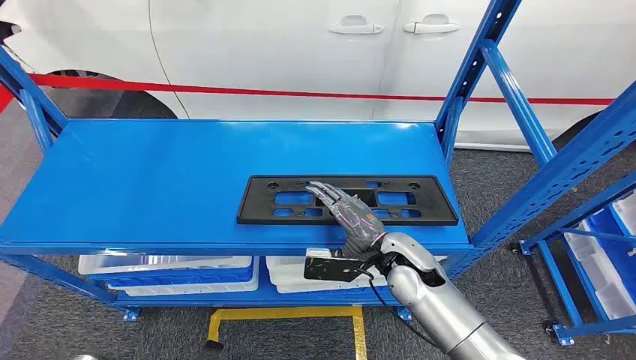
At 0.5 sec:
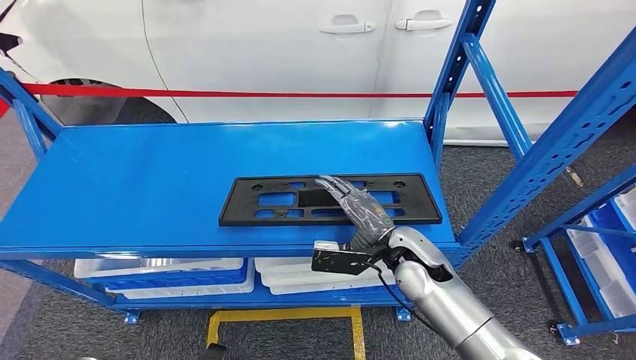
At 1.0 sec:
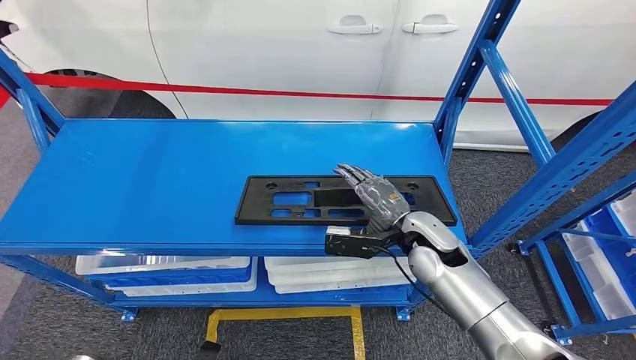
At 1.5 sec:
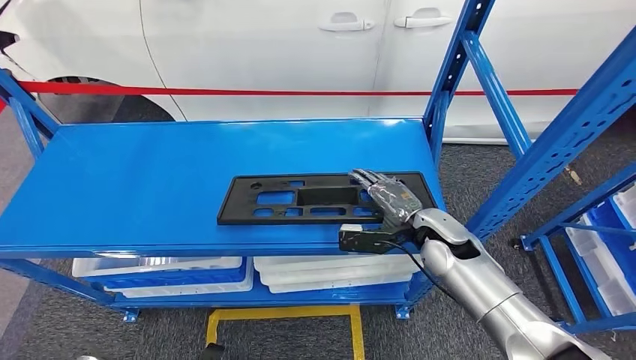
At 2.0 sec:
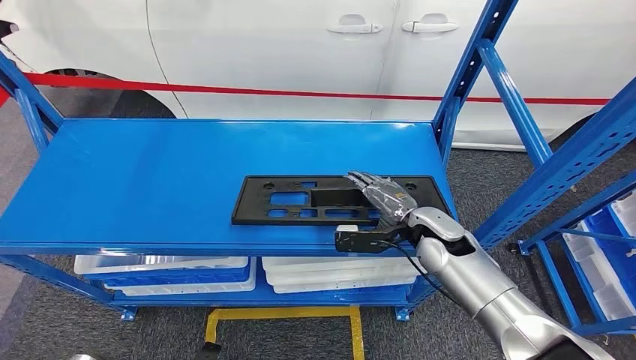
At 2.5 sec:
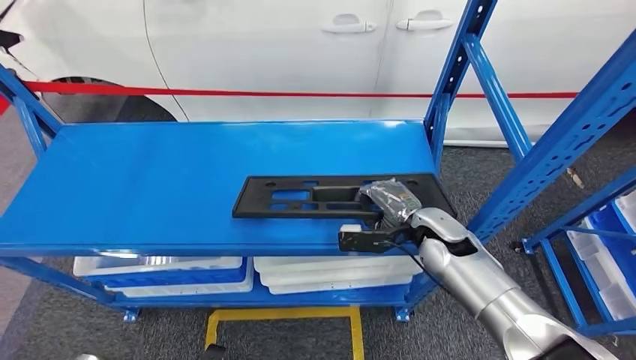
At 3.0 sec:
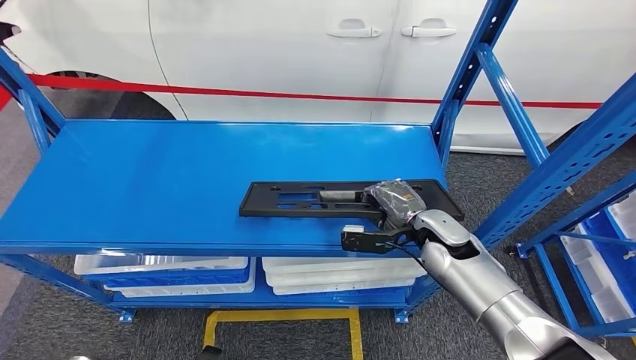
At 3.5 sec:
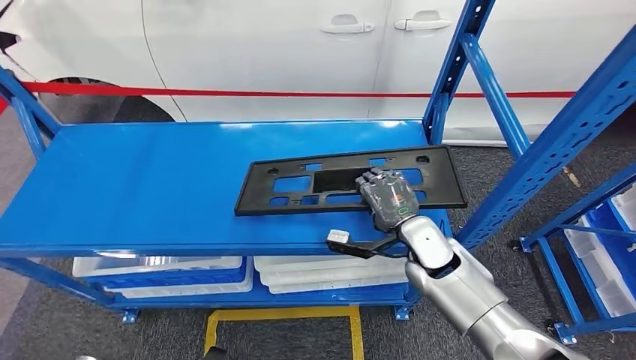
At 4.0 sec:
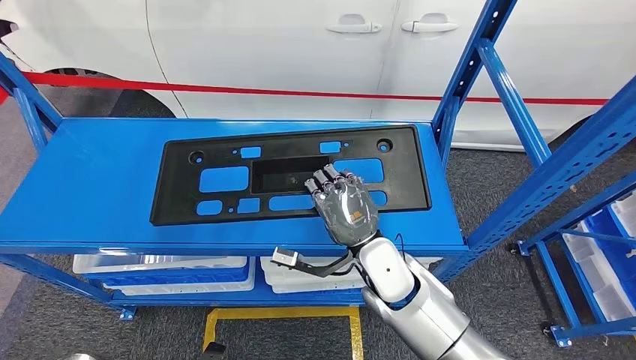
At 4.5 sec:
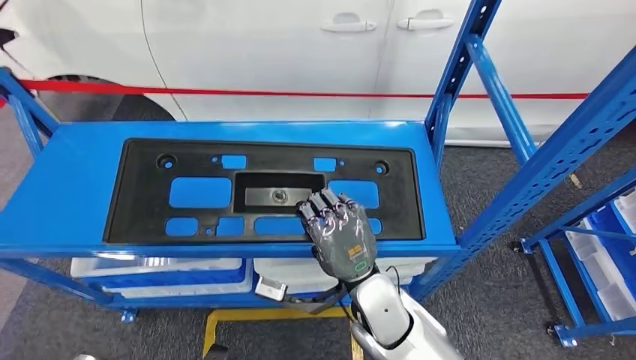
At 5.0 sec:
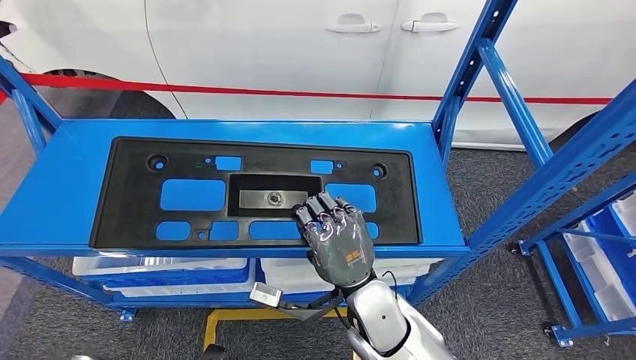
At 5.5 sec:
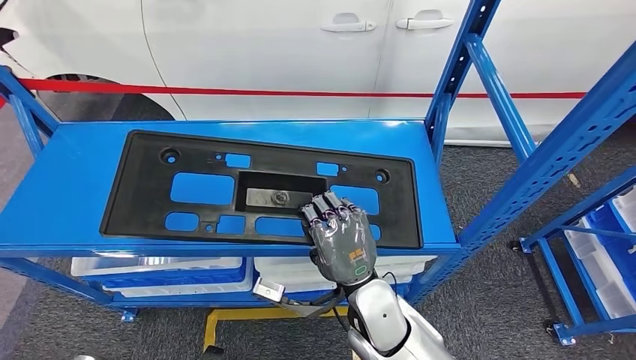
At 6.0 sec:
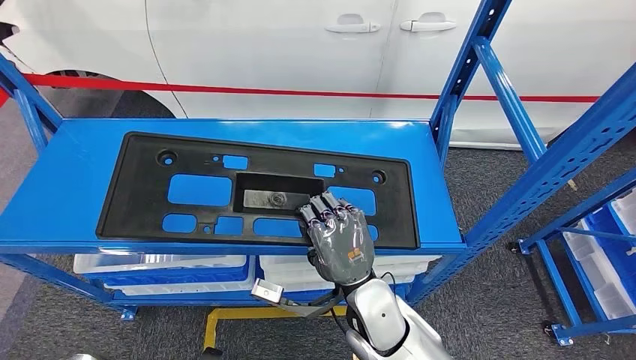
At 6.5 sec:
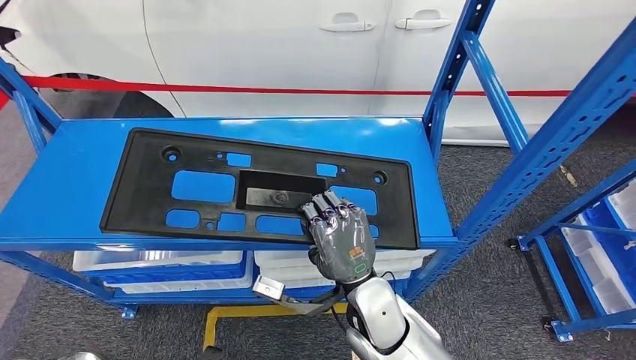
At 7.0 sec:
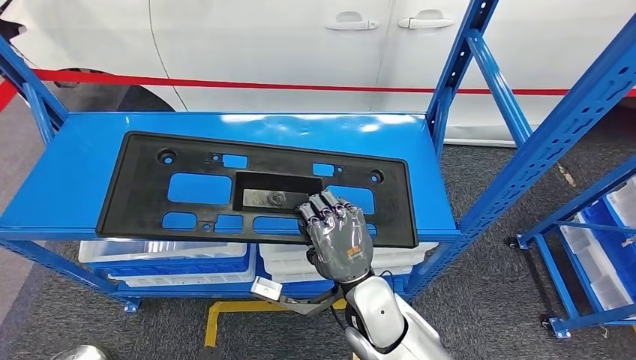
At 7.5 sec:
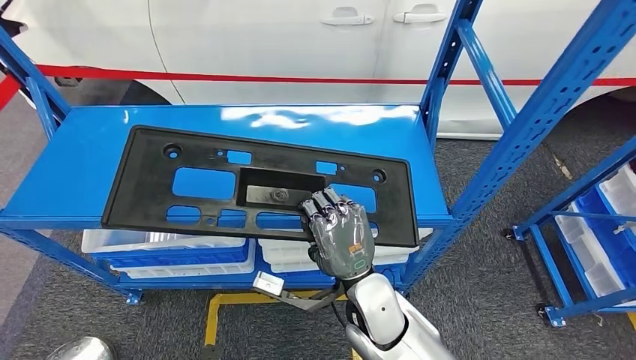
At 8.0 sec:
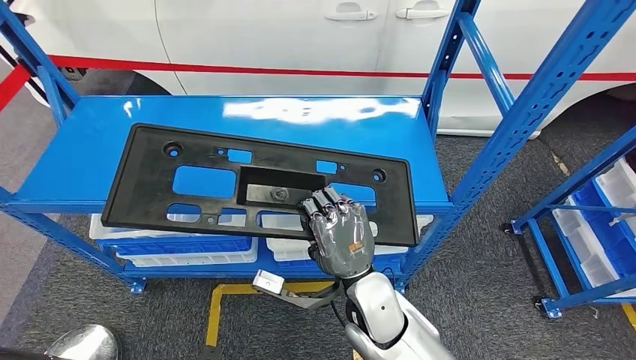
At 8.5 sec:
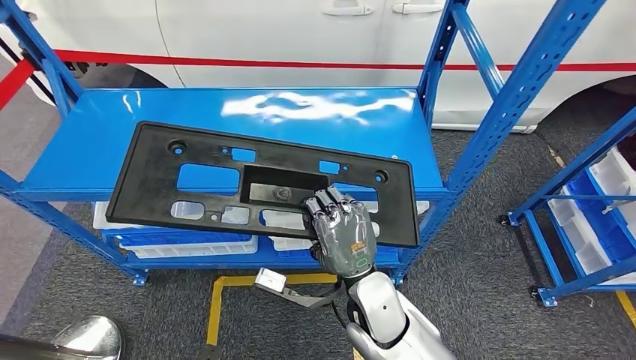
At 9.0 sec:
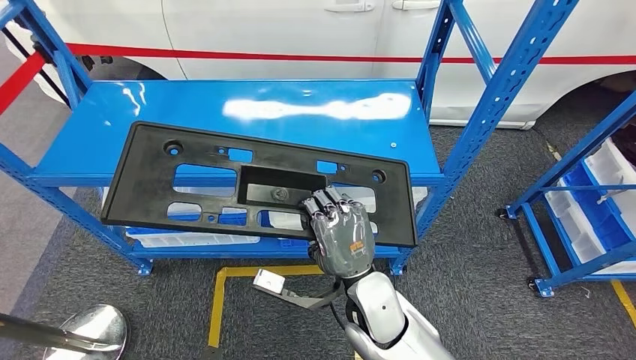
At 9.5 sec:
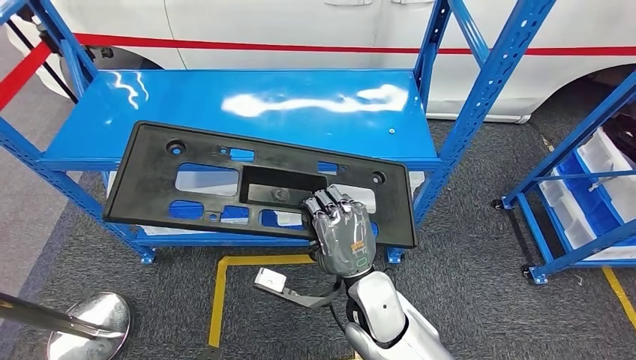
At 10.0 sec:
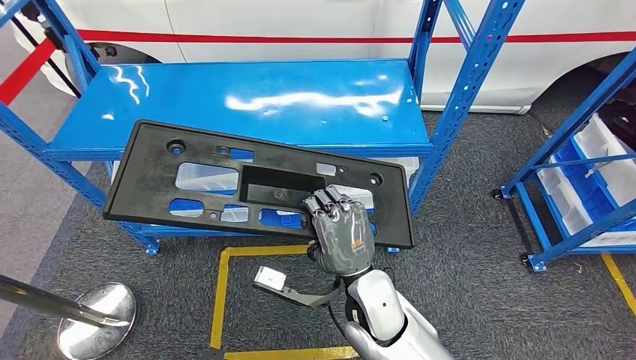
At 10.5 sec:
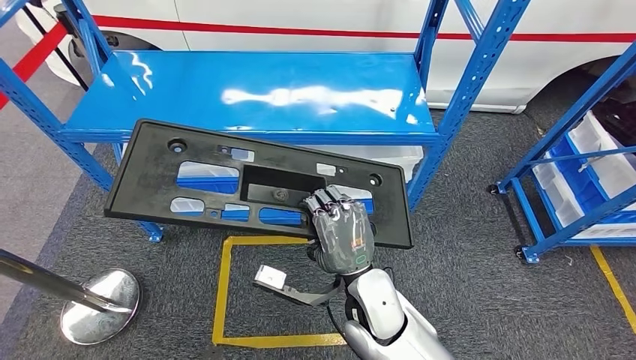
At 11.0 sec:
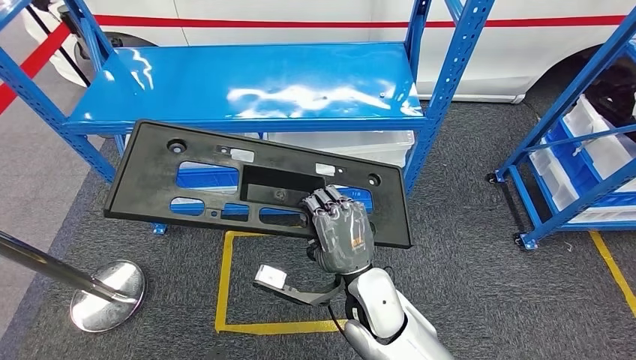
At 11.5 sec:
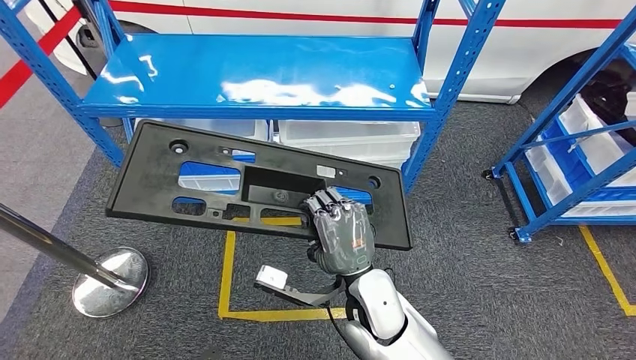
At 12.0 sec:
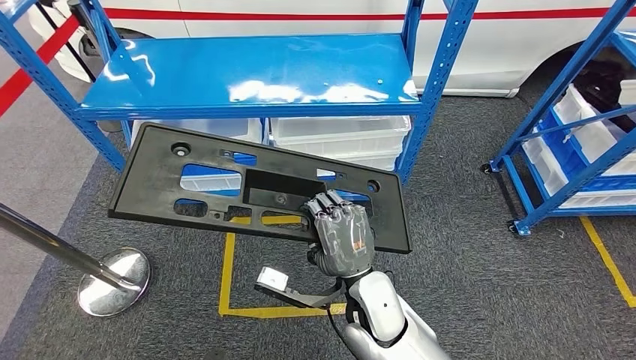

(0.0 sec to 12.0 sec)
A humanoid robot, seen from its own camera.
Step, 0.0 sec - 9.0 sec: Pick up the large material from the shelf.
2.0 sec - 4.0 sec: The right hand moves to the left and backward, roughly 15 cm.

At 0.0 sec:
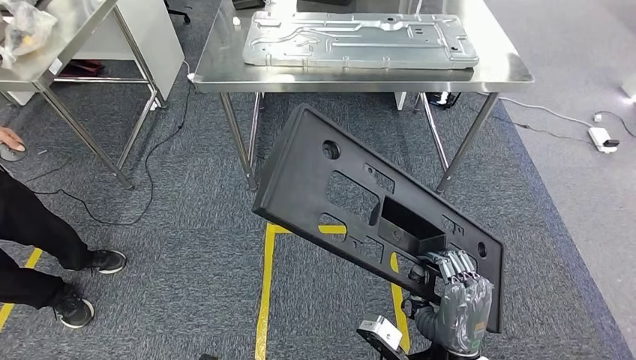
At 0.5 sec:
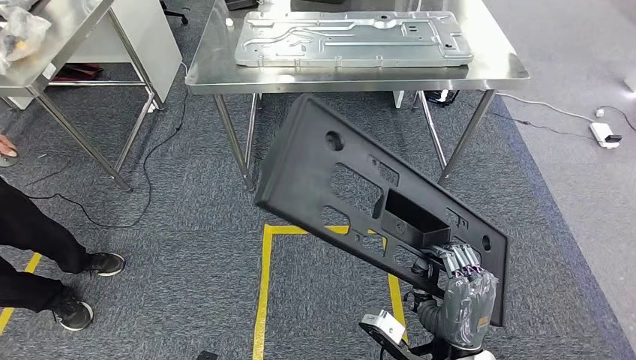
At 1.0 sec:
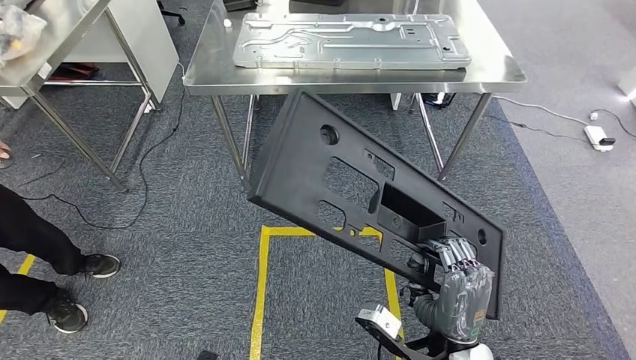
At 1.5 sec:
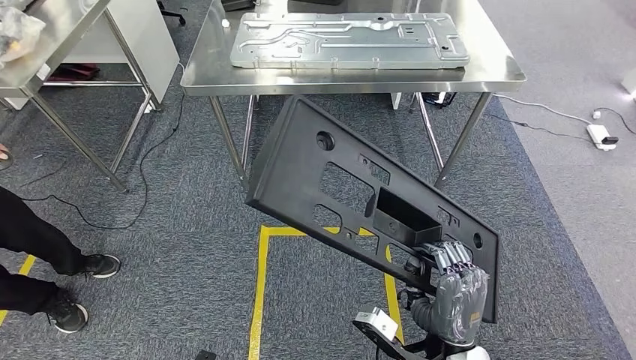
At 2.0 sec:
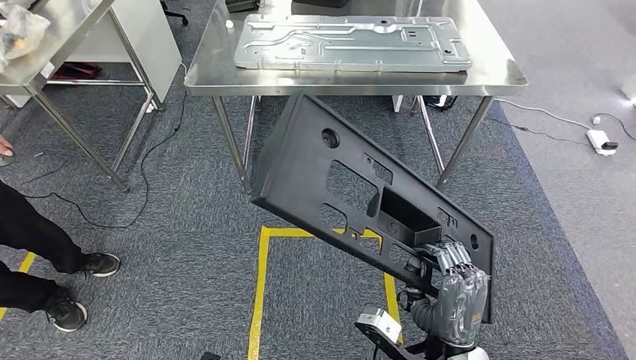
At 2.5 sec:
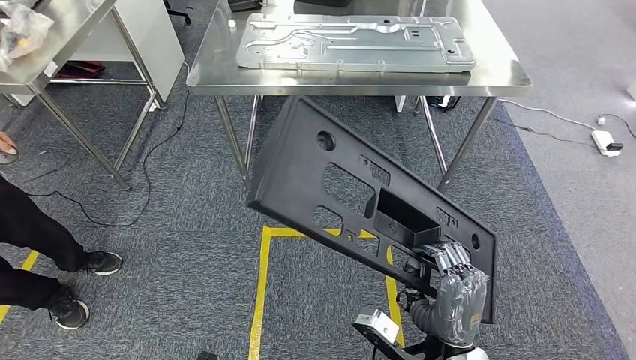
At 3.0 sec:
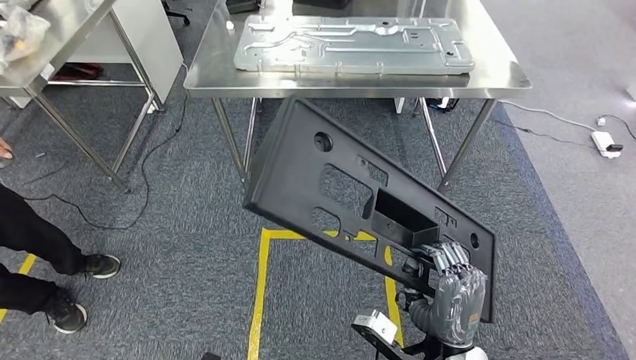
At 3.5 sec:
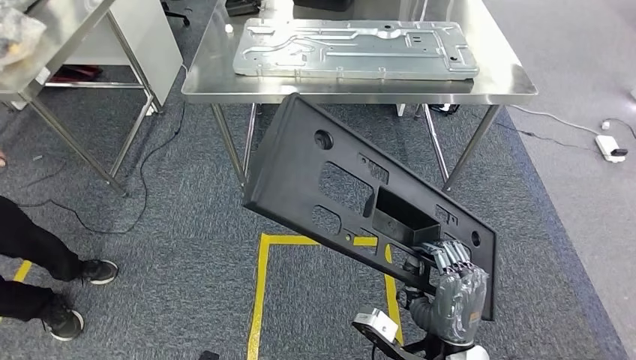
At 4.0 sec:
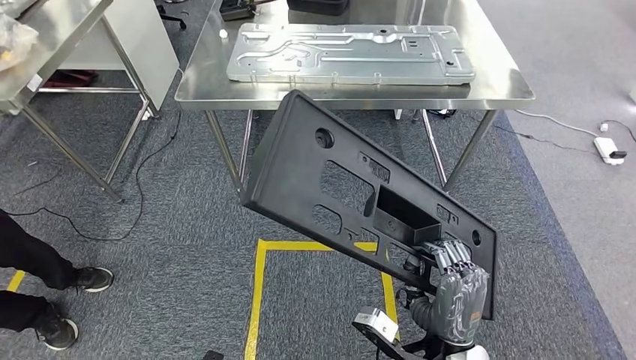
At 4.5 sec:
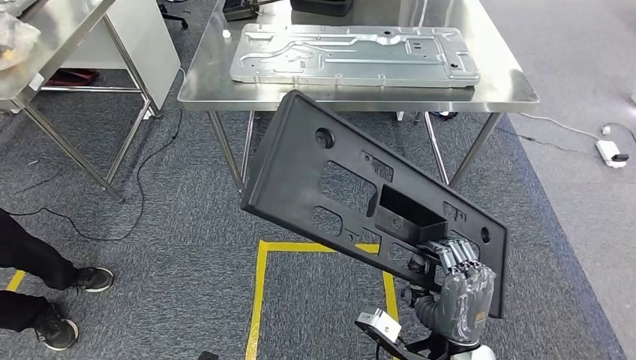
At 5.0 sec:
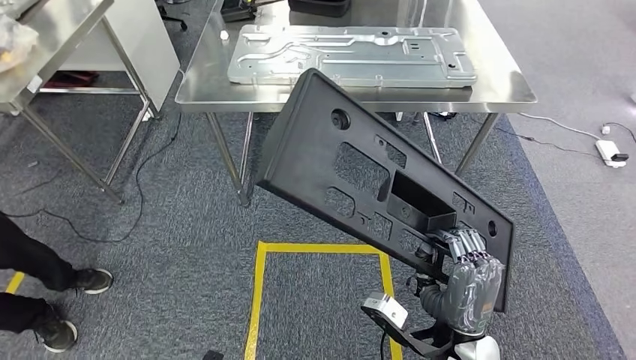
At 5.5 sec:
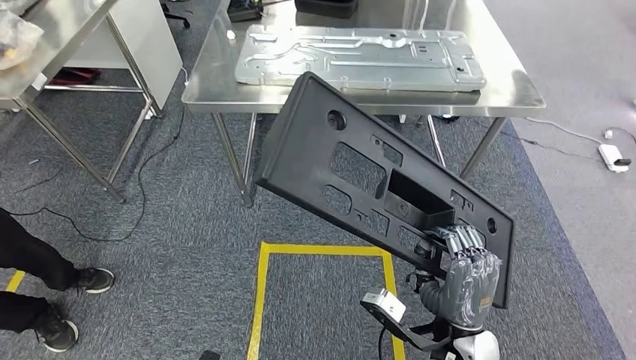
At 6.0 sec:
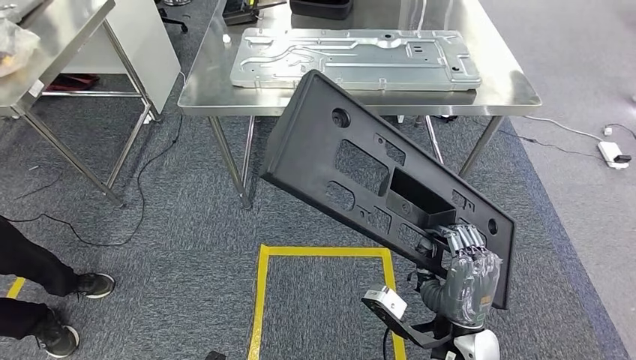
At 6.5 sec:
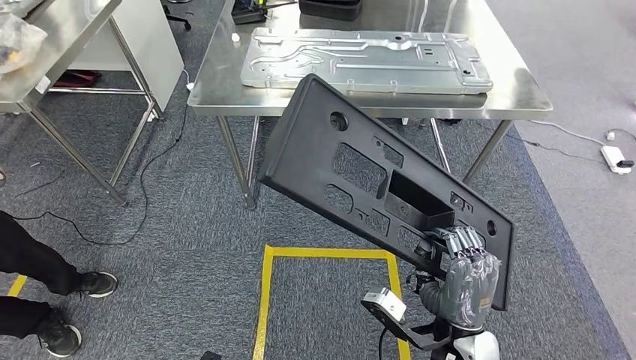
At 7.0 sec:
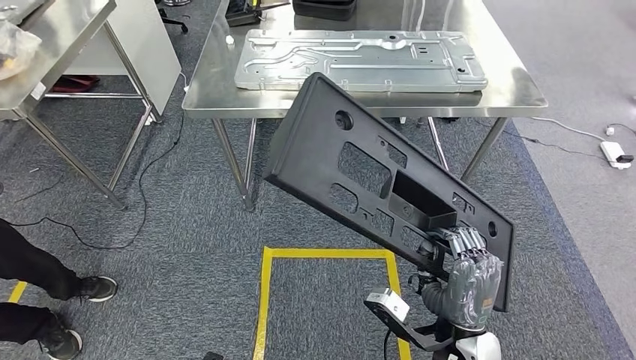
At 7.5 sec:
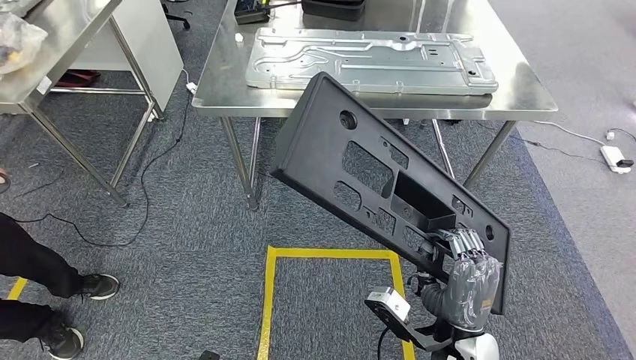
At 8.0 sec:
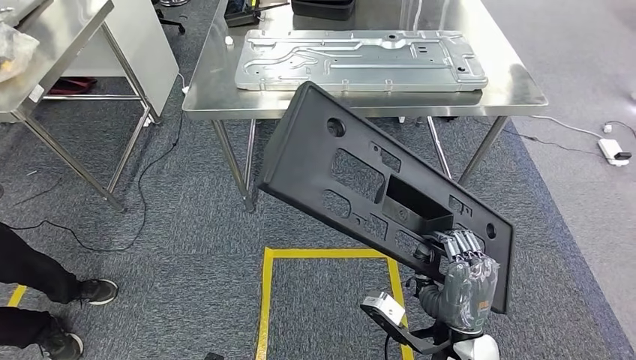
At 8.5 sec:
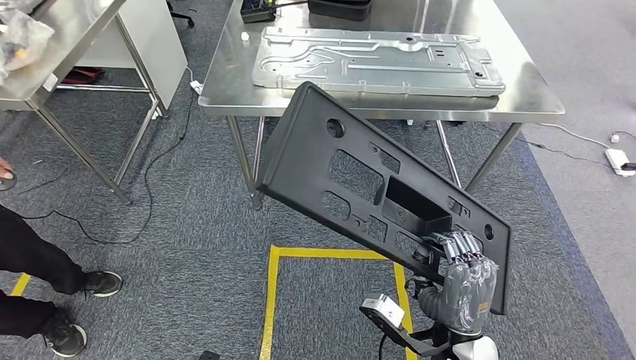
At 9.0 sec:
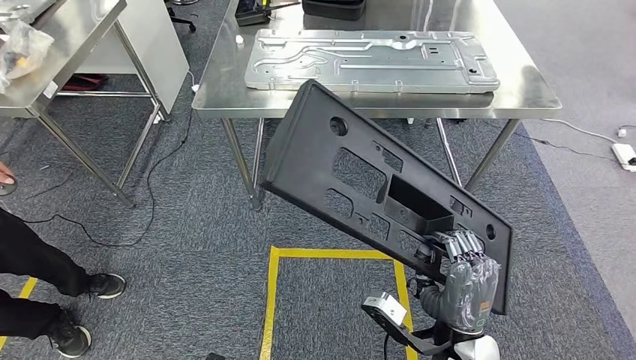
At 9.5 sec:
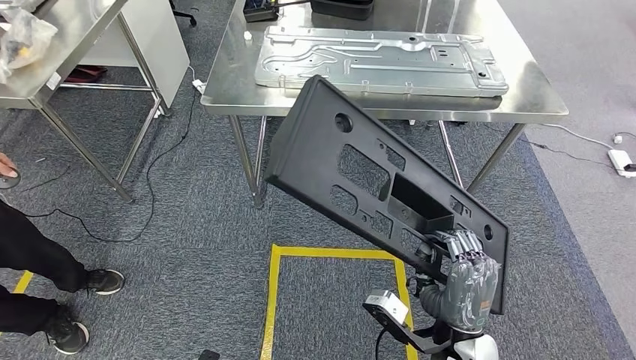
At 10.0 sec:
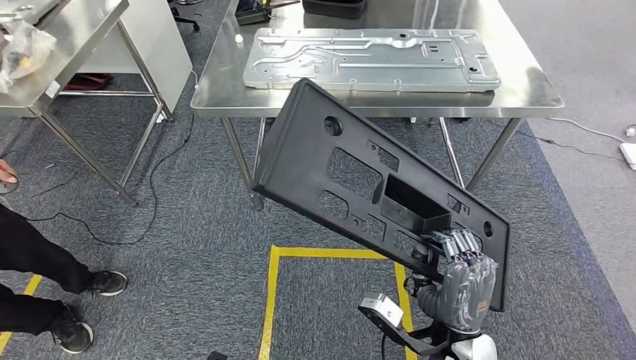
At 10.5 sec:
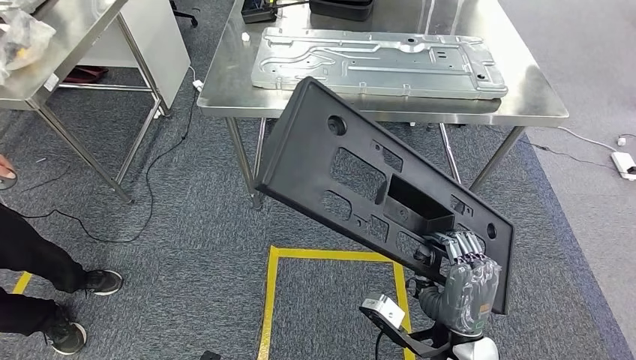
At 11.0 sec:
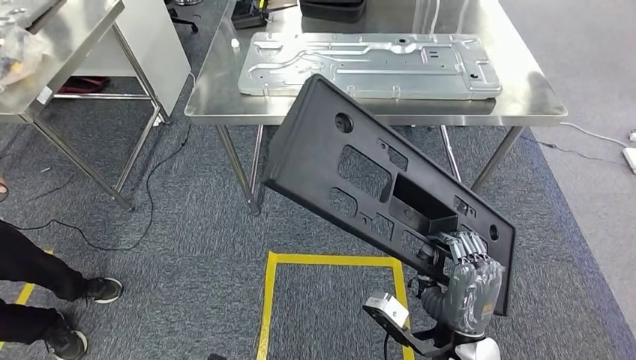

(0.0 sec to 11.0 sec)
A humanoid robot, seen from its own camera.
Step, 0.0 sec - 10.5 sec: Move the large material to the workbench.
0.0 sec - 2.0 sec: The hands stay close to where they were, moving slightly.
2.0 sec - 3.5 sec: Both hands stay put.
5.5 sec - 11.0 sec: The two hands keep their place.
